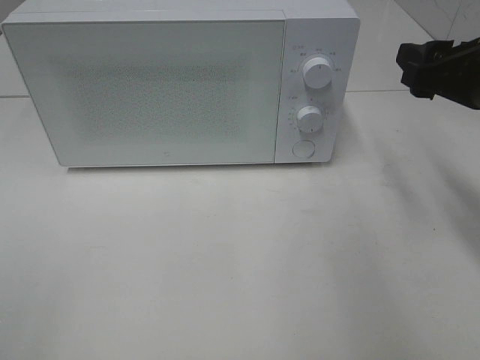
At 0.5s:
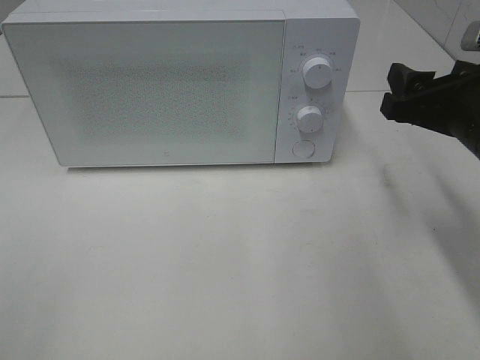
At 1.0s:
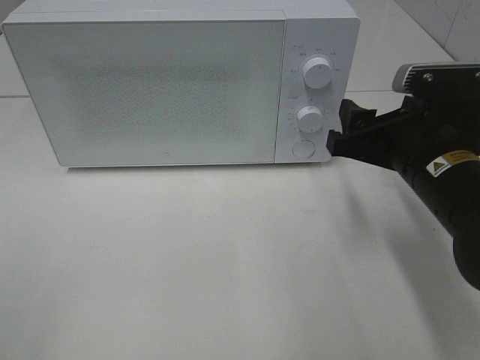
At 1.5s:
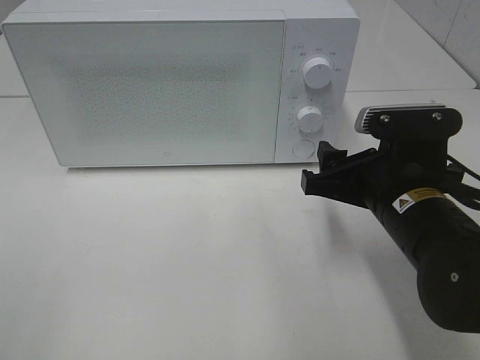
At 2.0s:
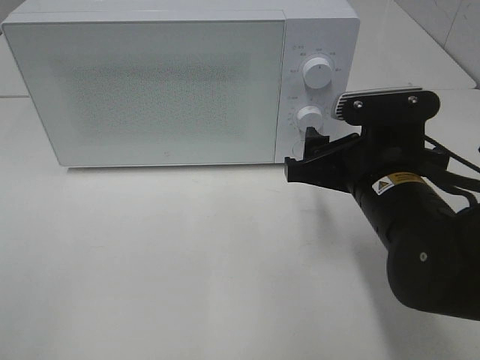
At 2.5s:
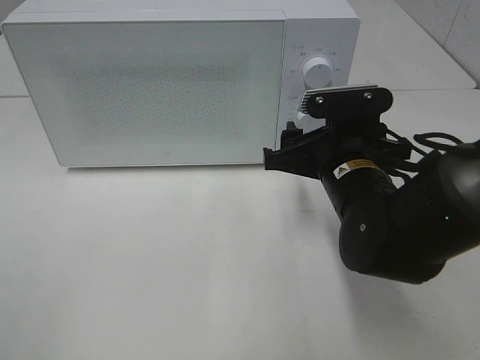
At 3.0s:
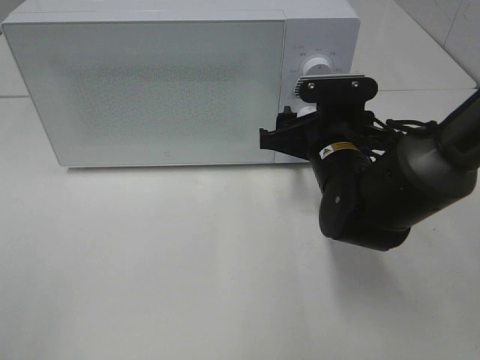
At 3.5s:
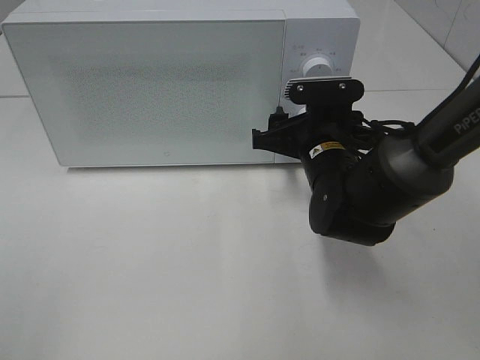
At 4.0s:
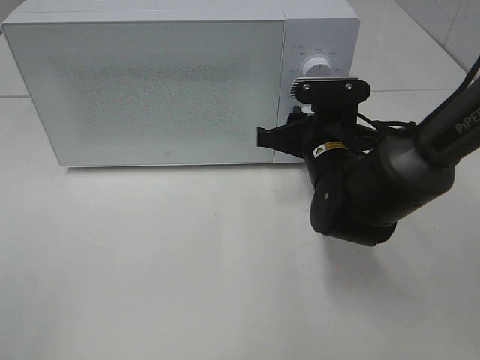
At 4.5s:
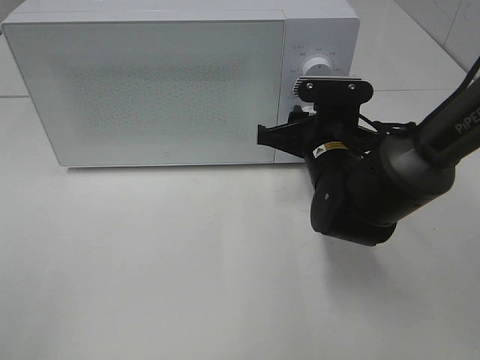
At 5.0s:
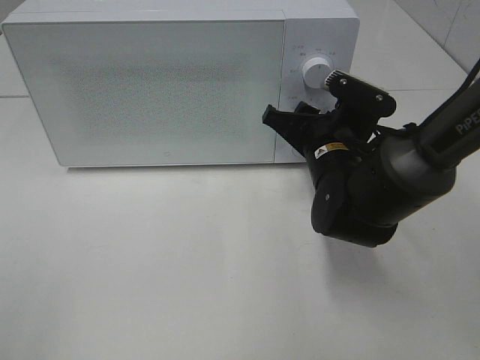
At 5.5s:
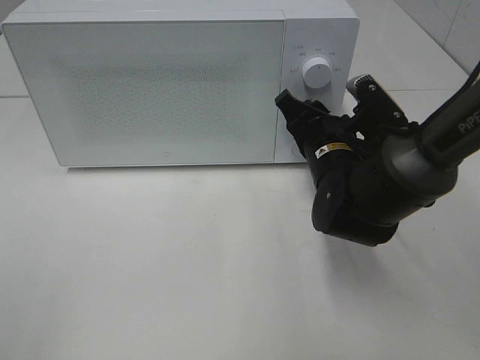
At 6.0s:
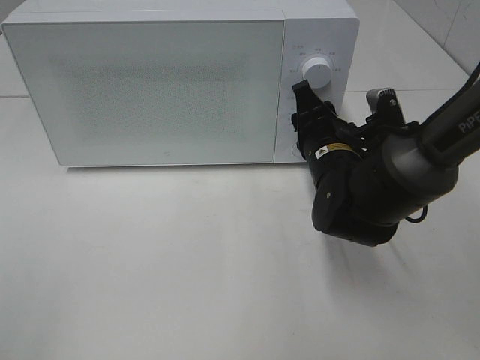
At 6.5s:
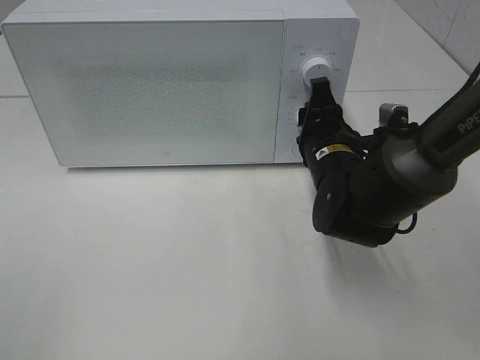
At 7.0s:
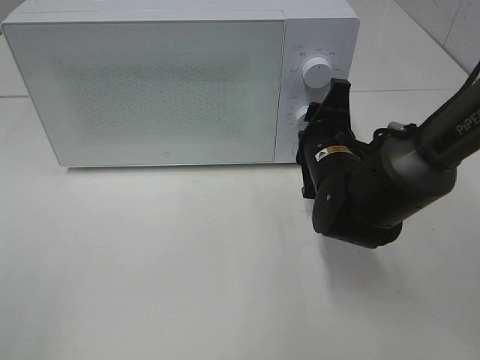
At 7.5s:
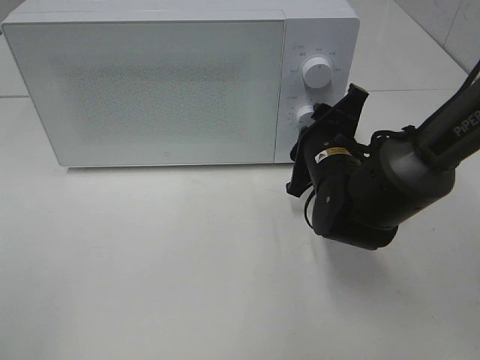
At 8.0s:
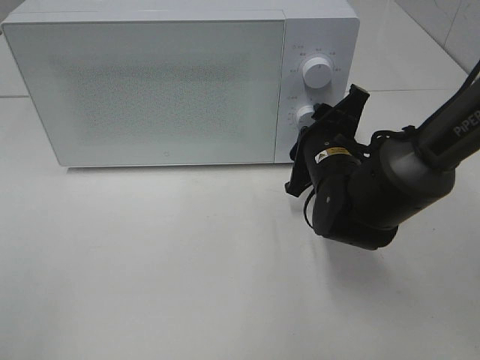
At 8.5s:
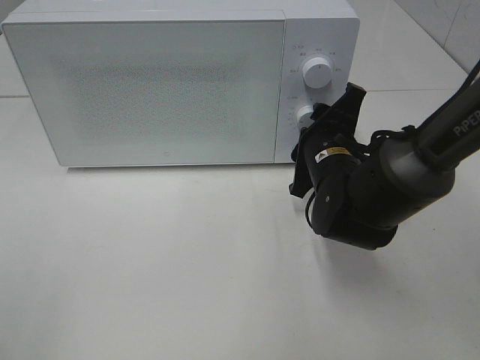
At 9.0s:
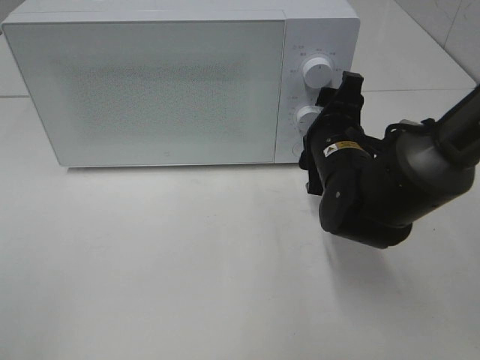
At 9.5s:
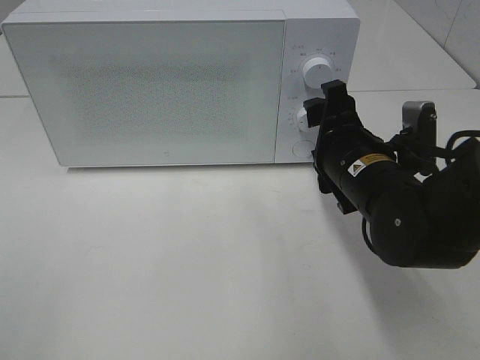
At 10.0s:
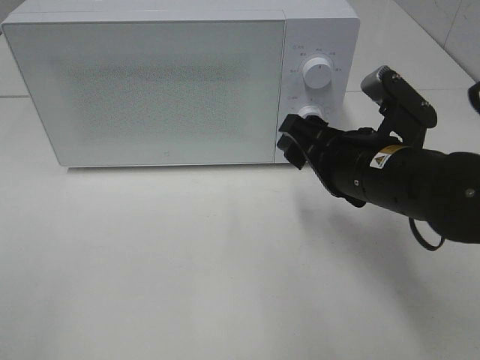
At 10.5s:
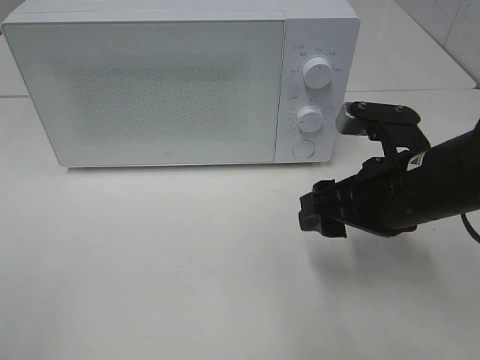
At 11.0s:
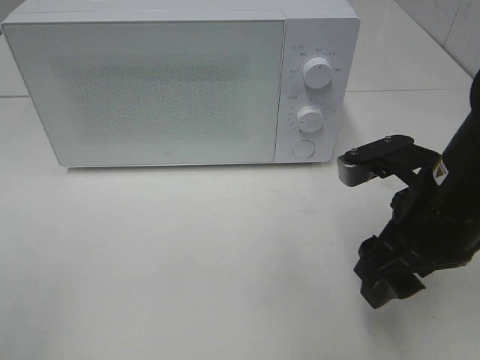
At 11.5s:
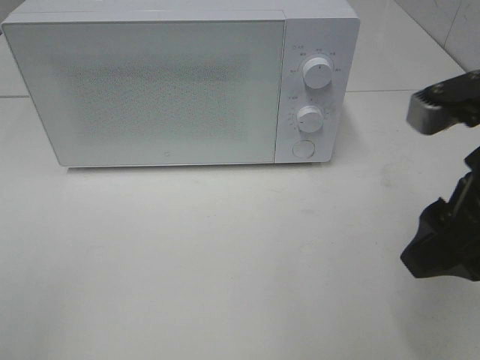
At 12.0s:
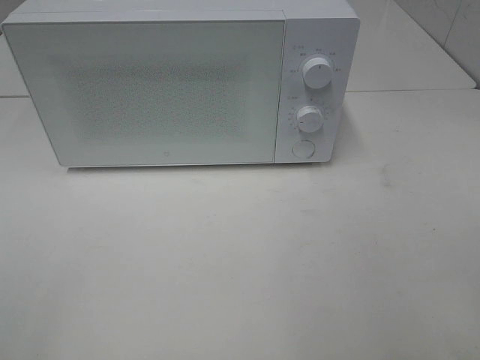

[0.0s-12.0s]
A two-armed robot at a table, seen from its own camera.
Task of the whole recording: Heat the burger.
Step, 0.0s to 9.0s: Right hand: twist timer button.
0.0s to 2.0s: The right gripper is displaced to the left and downward by roughly 15 cm.
2.0s to 4.0s: The right gripper travels forward by some 10 cm, and closes up.
8.0s to 10.0s: The right gripper goes about 10 cm backward and upward.
10.0s to 12.0s: The right gripper shifts roughly 25 cm backward, to the right and upward.

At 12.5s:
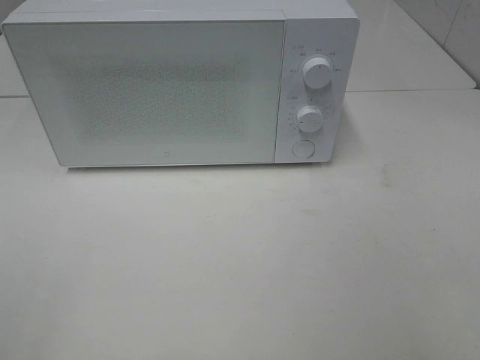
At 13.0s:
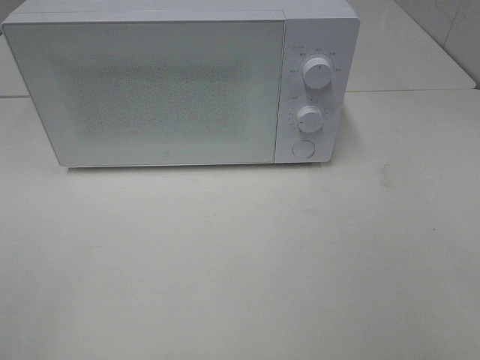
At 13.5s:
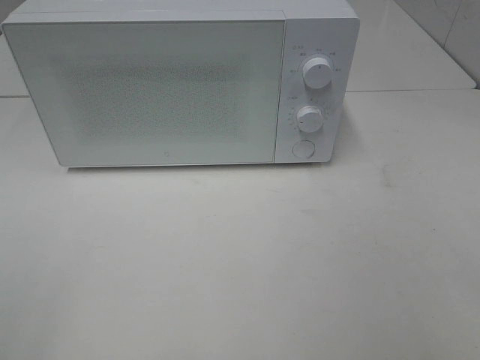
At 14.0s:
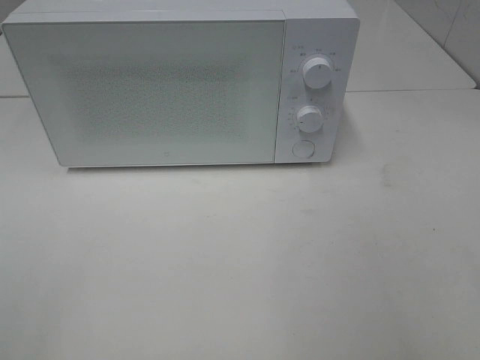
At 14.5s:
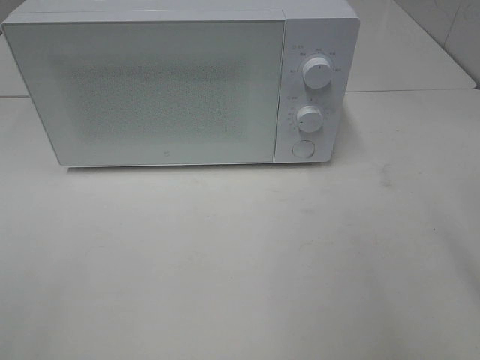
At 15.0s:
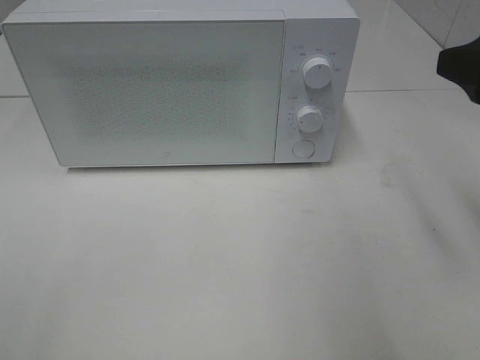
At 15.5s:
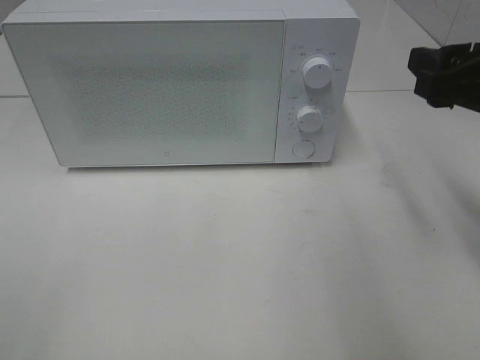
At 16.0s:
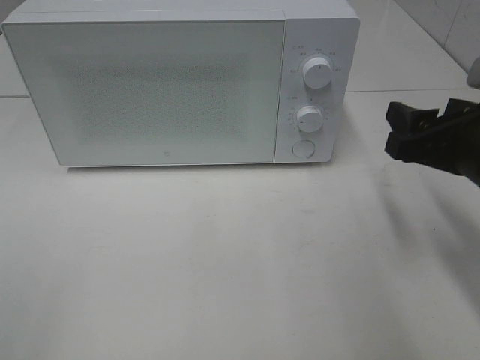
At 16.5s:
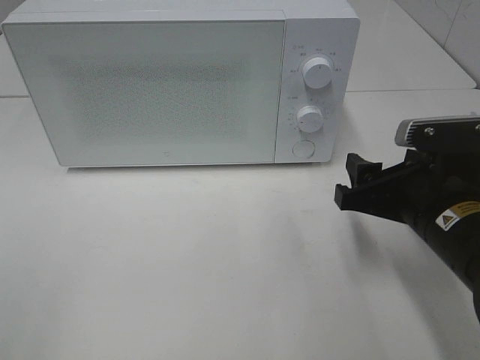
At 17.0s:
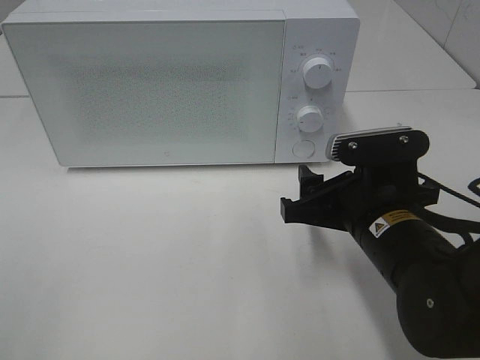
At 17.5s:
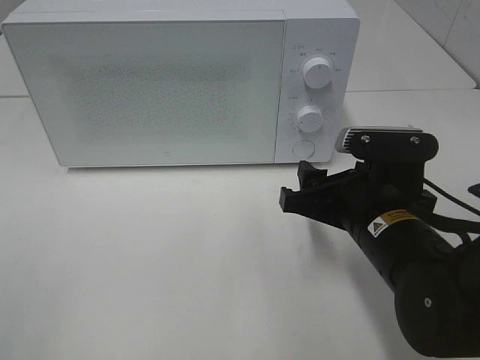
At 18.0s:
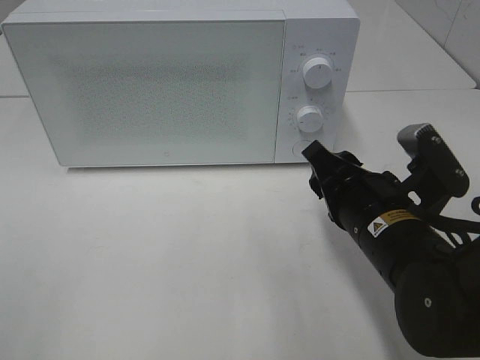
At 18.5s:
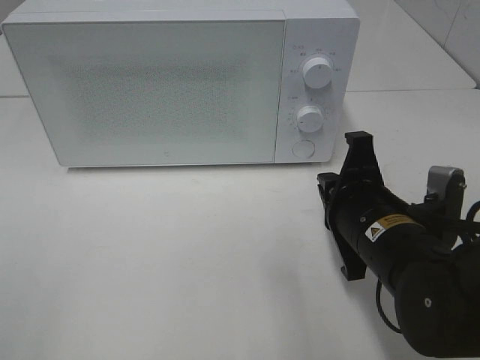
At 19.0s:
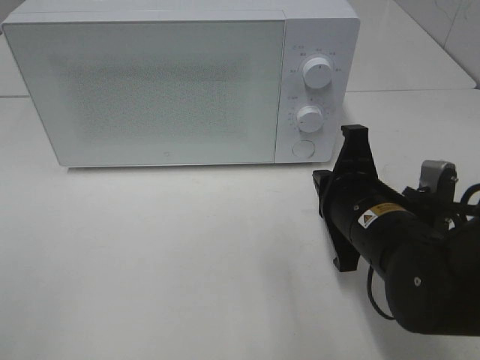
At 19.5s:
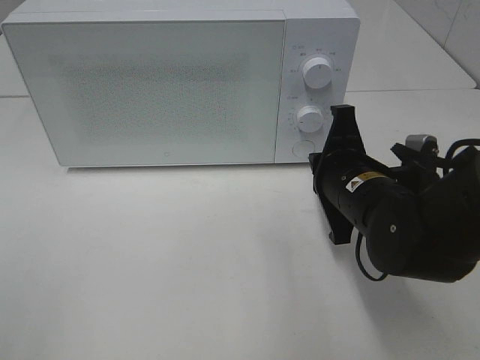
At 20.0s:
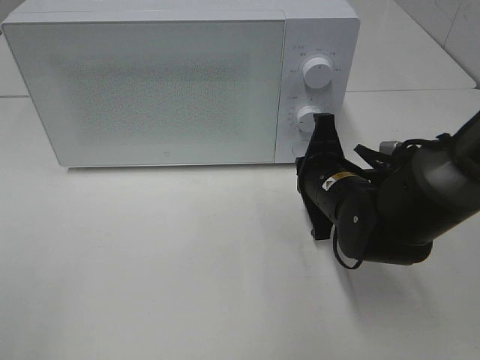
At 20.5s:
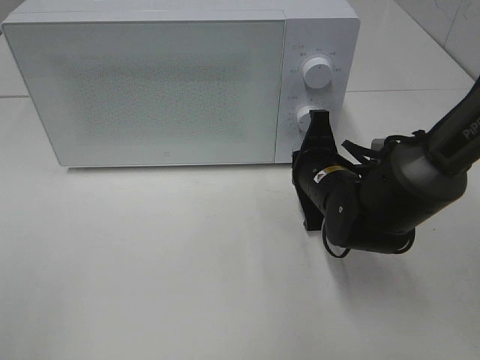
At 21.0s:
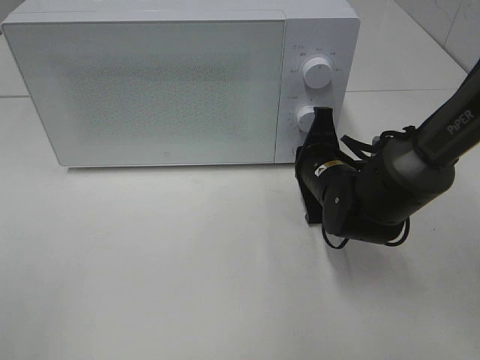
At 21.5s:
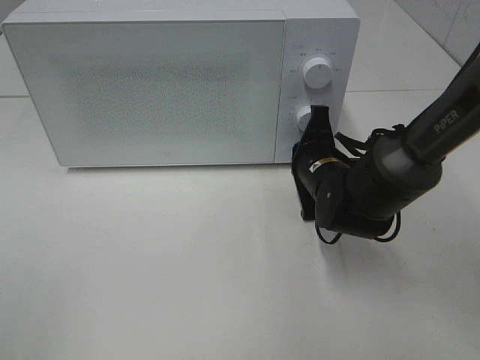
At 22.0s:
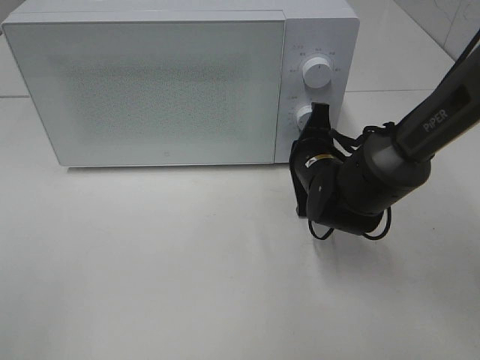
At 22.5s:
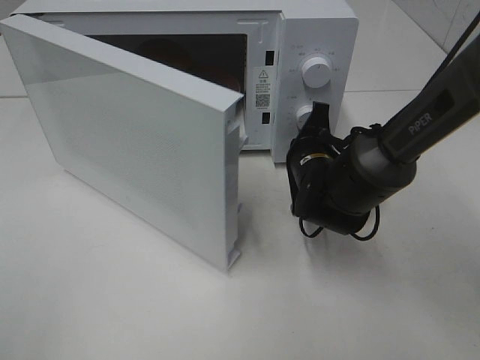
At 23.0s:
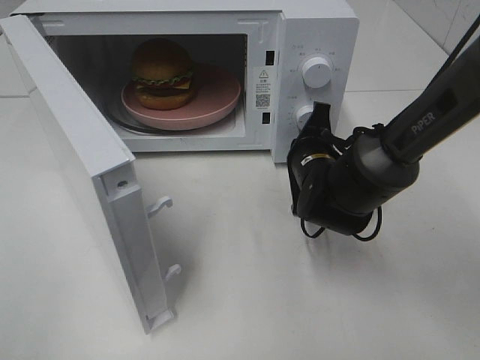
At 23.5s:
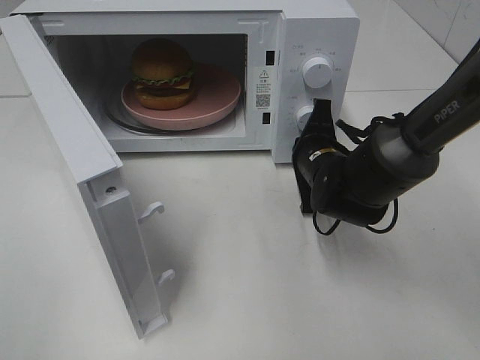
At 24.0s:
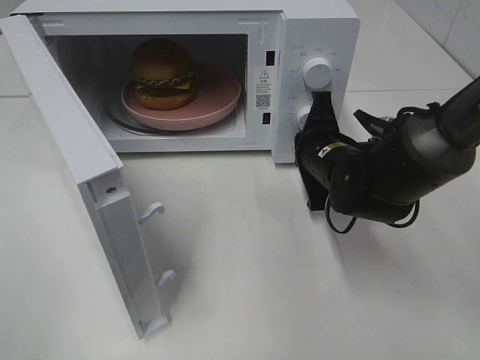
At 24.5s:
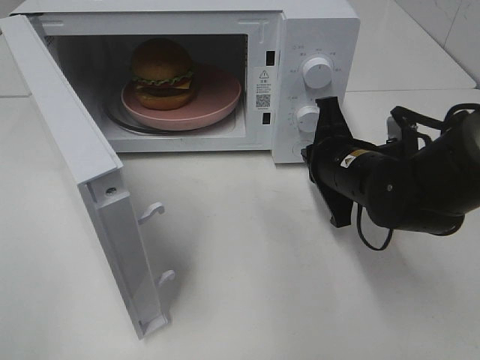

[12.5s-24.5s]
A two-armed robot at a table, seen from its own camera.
Task of the whole recording: Heat the burger.
Step, 12.5s to 24.0s: Right hand: press the switch.
14.5s to 16.5s: The right gripper is displaced downward, forward and to the left by some 20 cm.
16.5s to 18.5s: The right gripper heads to the left, covering approximately 5 cm, and closes its fingers.
18.5s to 20.5s: The right gripper heads forward, covering approximately 10 cm.
22.5s to 24.5s: The right gripper is displaced backward by some 5 cm.

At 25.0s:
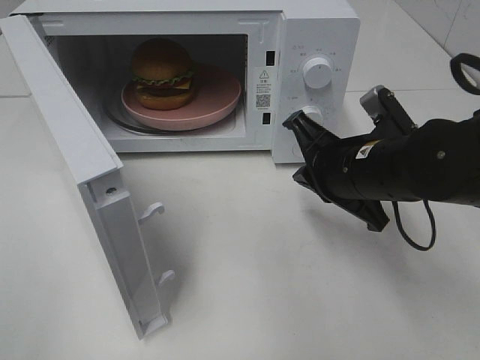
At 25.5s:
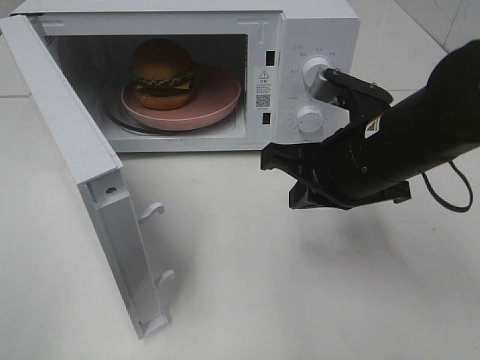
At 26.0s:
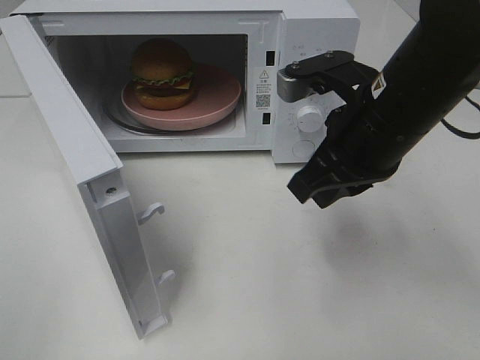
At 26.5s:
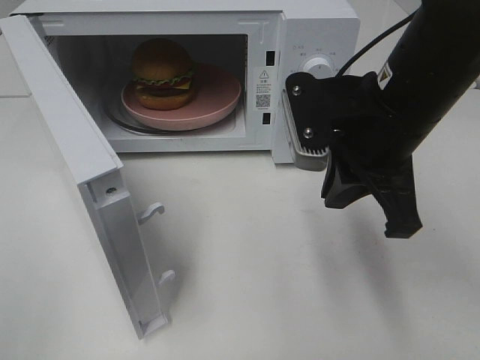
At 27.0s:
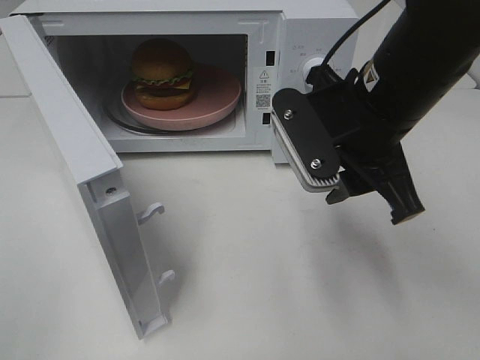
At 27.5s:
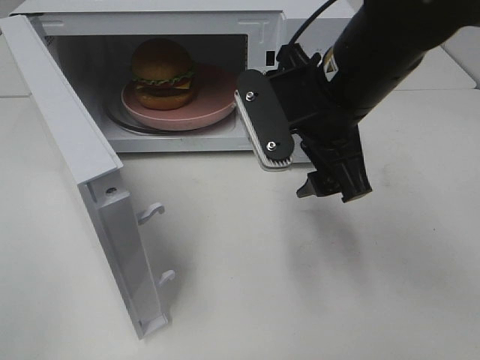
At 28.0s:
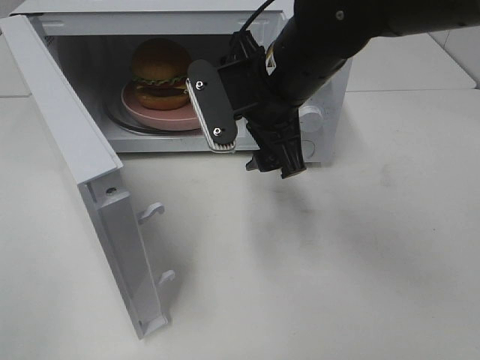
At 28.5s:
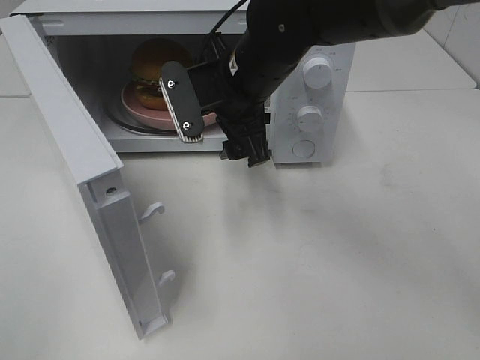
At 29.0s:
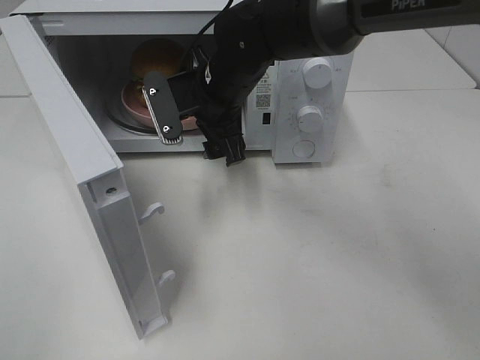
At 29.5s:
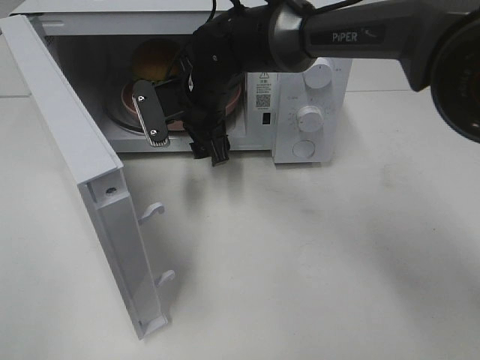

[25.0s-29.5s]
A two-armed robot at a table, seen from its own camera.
Task of the whole recording: Heat the burger.
25.0s to 27.0s: The right gripper goes approximately 10 cm upward, and opens up.
27.0s to 29.5s: The right gripper heads forward, to the left and downward, covering approximately 25 cm.
